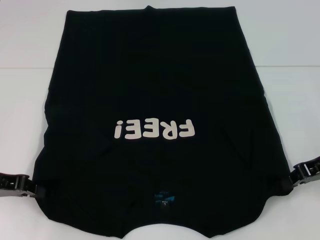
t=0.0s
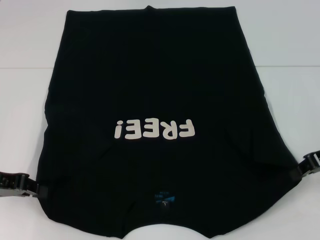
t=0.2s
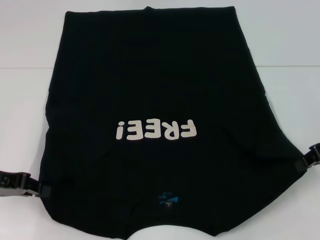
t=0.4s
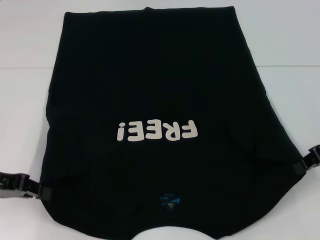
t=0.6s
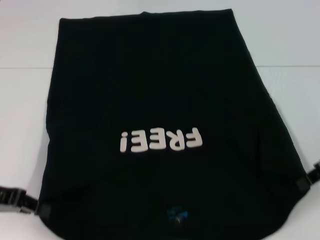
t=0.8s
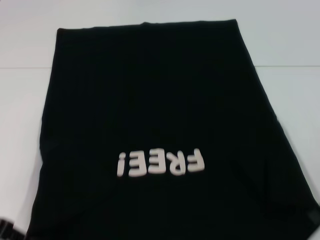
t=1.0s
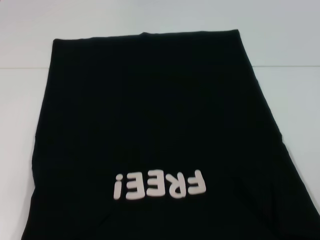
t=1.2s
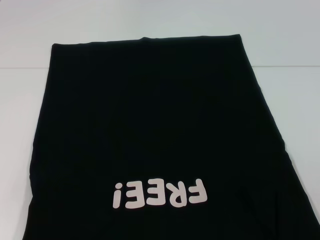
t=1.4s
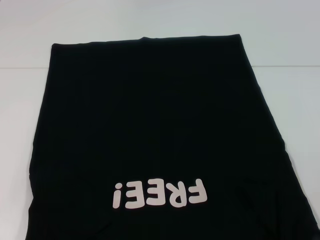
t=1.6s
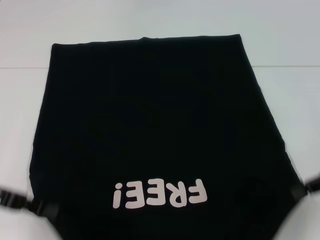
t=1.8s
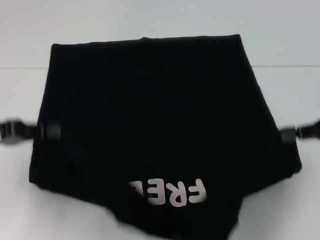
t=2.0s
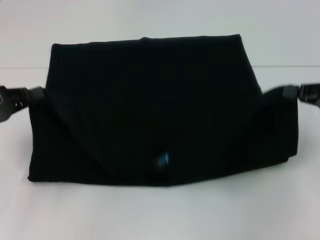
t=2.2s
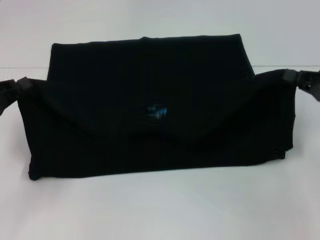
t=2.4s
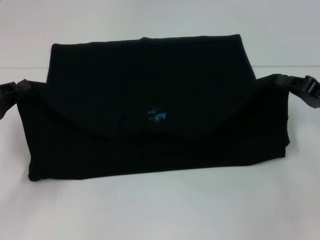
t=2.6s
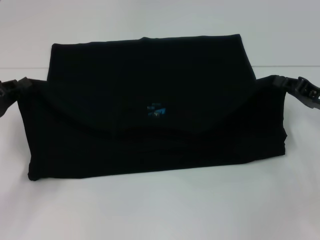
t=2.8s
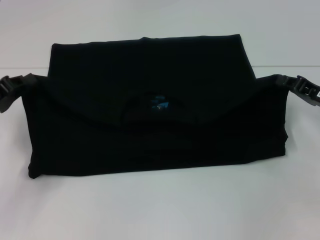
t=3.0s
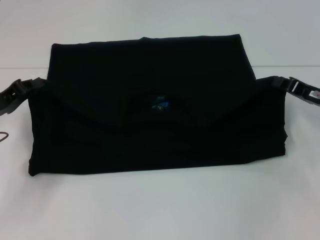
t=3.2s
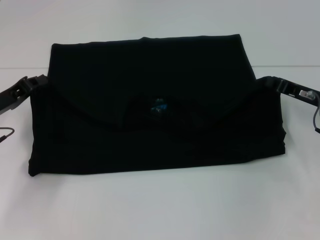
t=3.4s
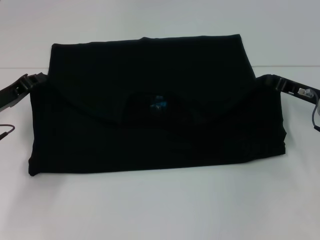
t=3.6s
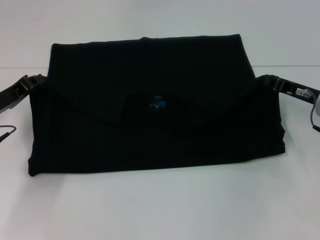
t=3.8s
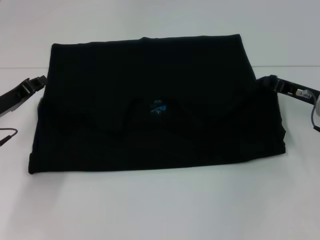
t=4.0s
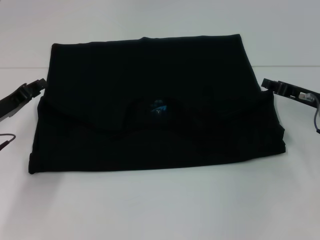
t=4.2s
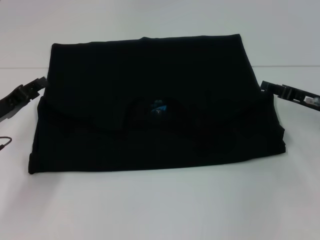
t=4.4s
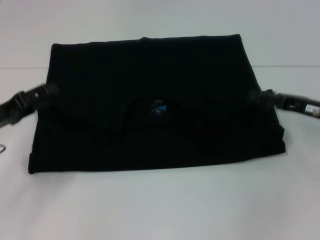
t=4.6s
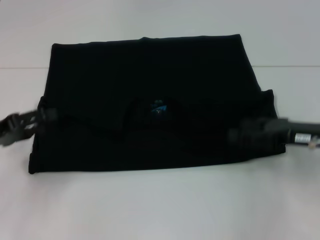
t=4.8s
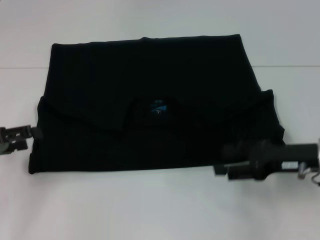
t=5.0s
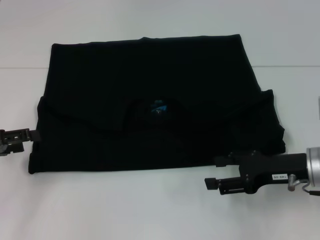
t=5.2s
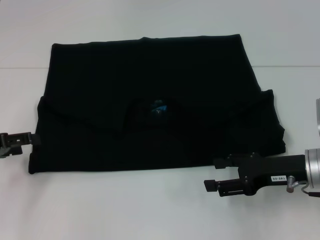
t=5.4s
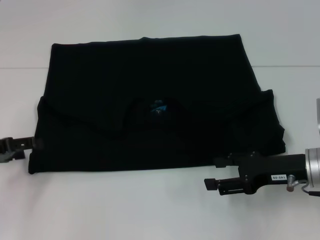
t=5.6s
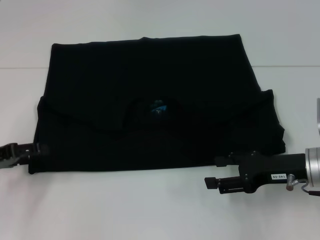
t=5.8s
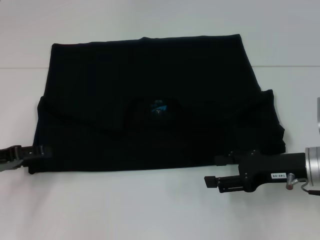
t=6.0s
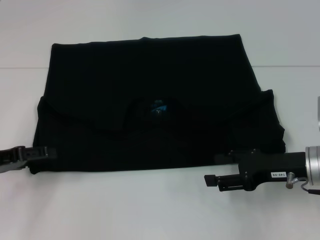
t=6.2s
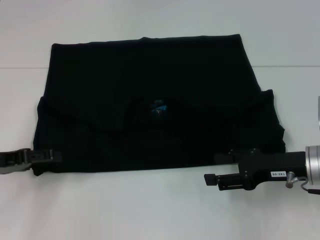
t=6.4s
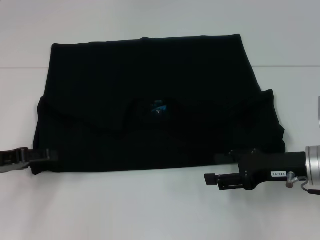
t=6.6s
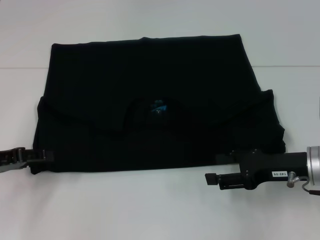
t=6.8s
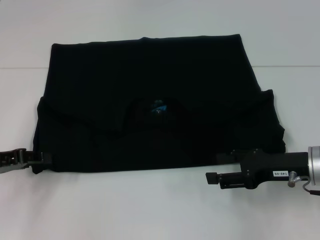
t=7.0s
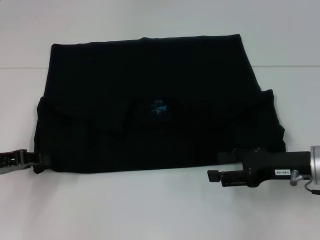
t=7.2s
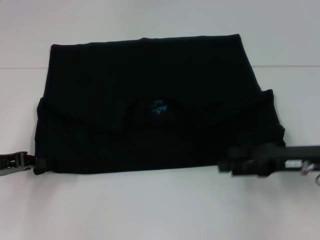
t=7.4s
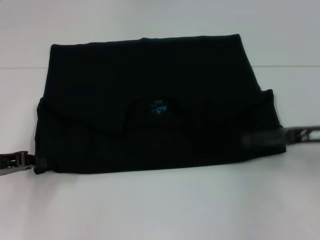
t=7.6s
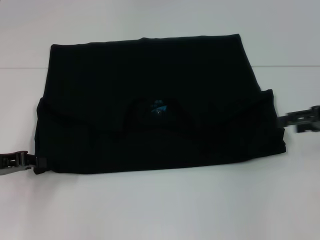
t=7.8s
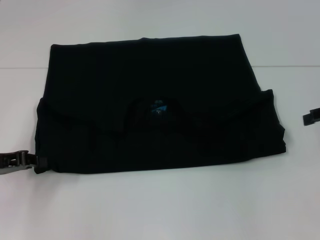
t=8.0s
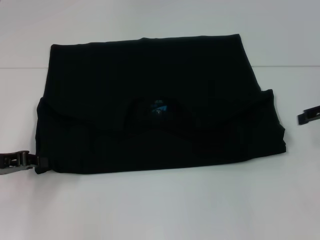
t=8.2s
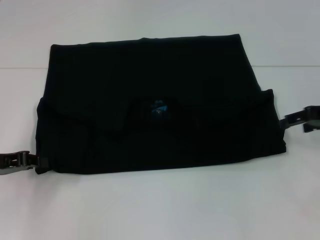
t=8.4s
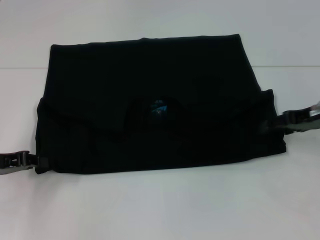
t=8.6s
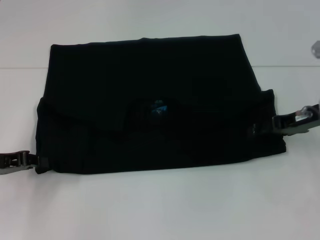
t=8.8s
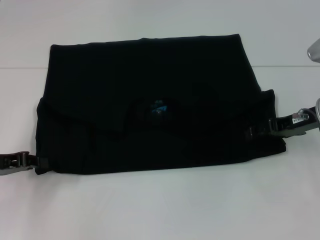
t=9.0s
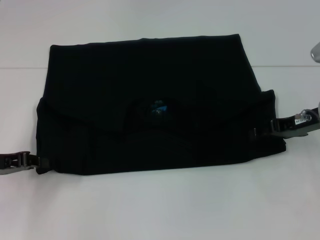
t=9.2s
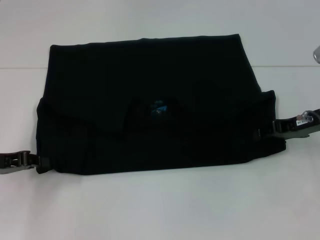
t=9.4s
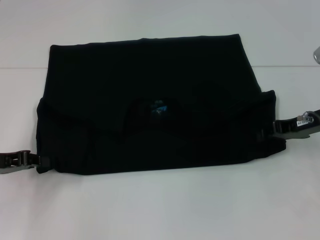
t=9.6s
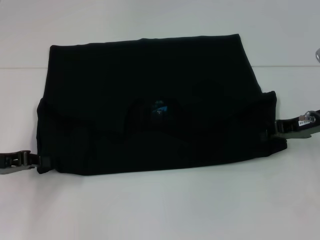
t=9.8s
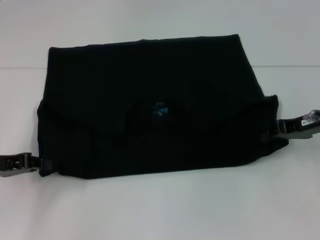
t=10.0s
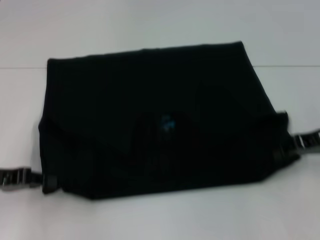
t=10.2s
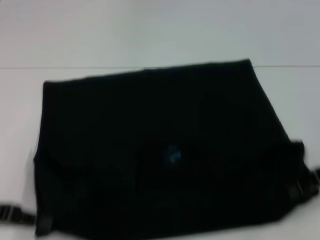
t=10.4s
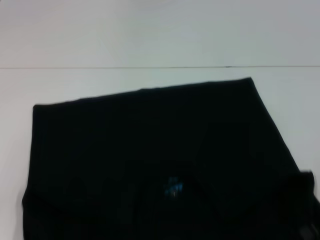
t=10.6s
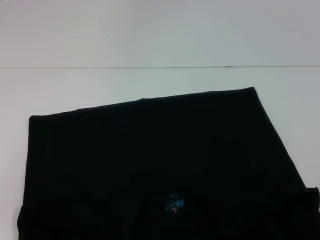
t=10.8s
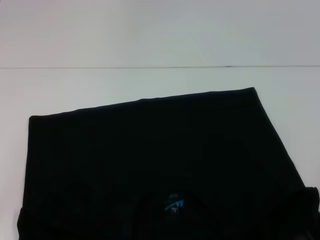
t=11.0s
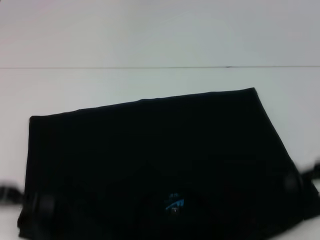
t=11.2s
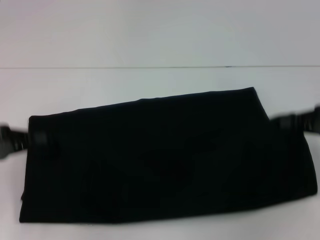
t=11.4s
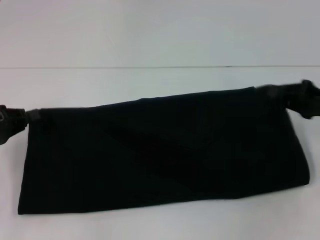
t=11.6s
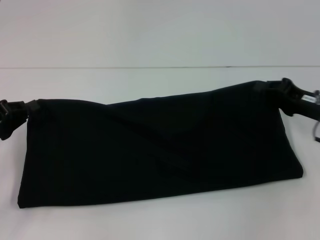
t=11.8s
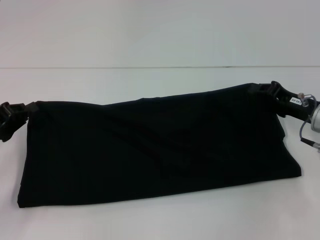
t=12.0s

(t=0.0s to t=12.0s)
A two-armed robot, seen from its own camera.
Step, t=0.0s - t=4.4s: Fold the clothes with your left hand.
Step, t=0.0s - t=4.4s: Fold the clothes with your right hand.
Step, t=4.6s - t=10.6s: Pull the clothes with your left hand.
Step, t=4.6s - t=10.6s: Pull the clothes with your right hand.
t=0.0s - t=1.6s: The right gripper moves about 5 cm.
t=1.6s - t=3.0s: The left gripper heads forward, covering about 5 cm, while the right gripper travels forward and downward by roughly 10 cm.
t=3.0s - t=4.4s: The left gripper opens its fingers.
t=4.4s - t=6.0s: The right gripper travels backward and to the left by about 10 cm, and opens up; the left gripper shifts by roughly 5 cm, and opens up.
t=6.0s - t=7.6s: The right gripper shifts approximately 5 cm to the right. Meanwhile the left gripper closes its fingers.
t=7.6s - t=9.0s: The right gripper moves forward, roughly 5 cm, and travels to the right and back again, about 5 cm each way.
t=9.0s - t=10.4s: The right gripper shifts some 10 cm backward and to the right, and closes. The left gripper changes place by about 5 cm.
t=10.4s - t=12.0s: The right gripper goes roughly 5 cm downward. The left gripper ends up about 5 cm from where it was.

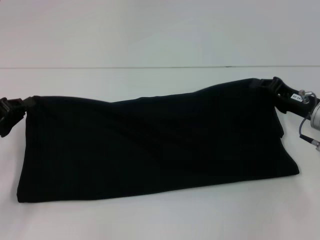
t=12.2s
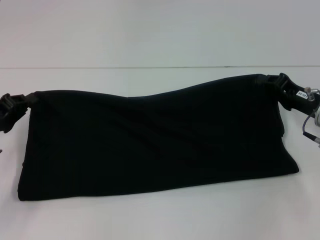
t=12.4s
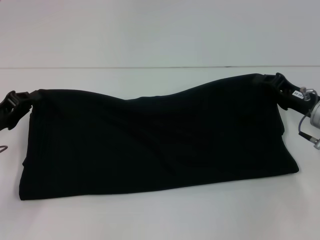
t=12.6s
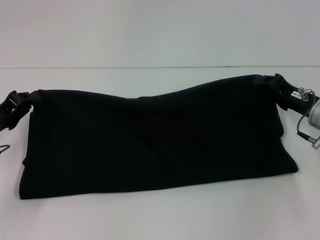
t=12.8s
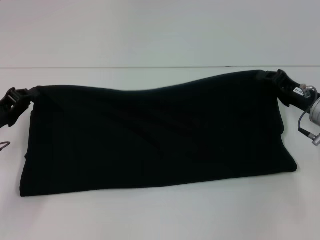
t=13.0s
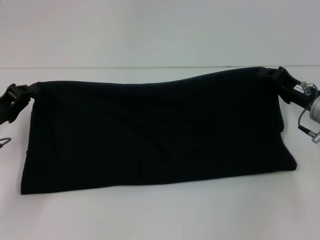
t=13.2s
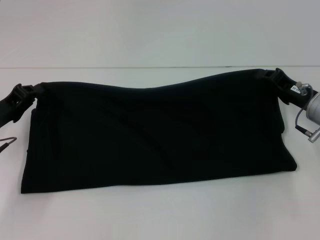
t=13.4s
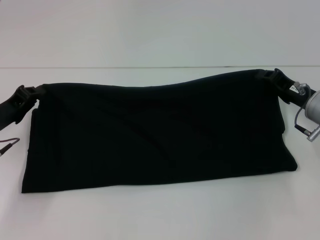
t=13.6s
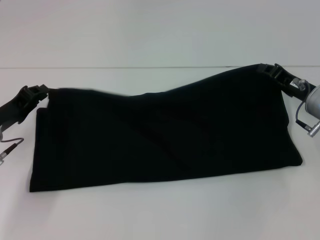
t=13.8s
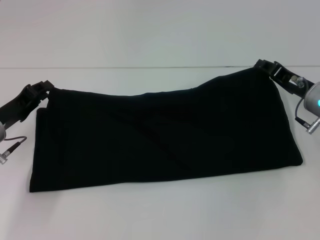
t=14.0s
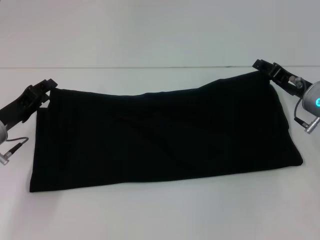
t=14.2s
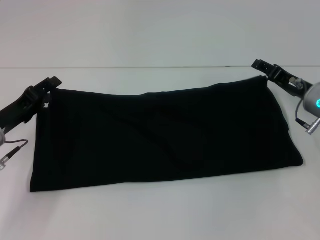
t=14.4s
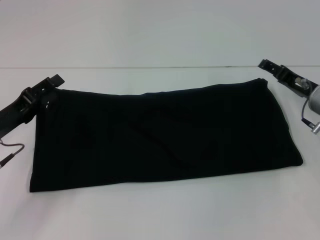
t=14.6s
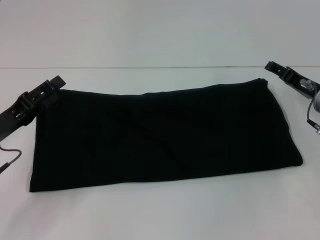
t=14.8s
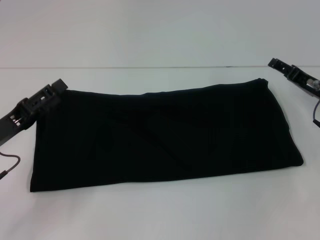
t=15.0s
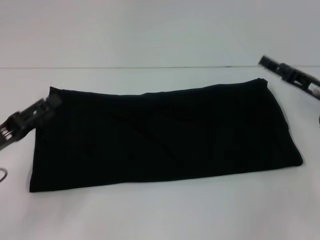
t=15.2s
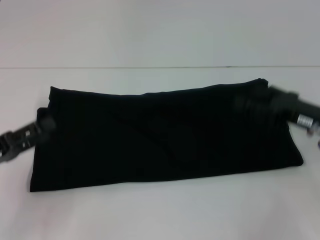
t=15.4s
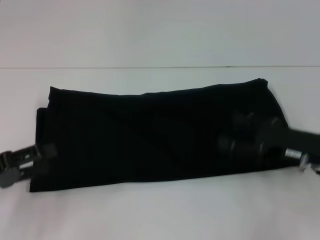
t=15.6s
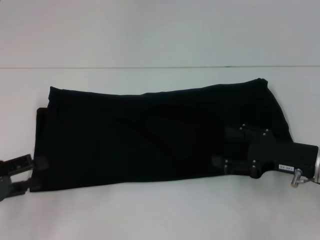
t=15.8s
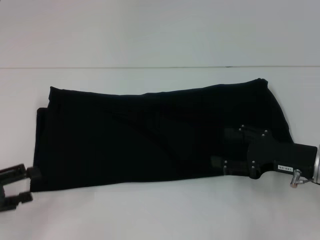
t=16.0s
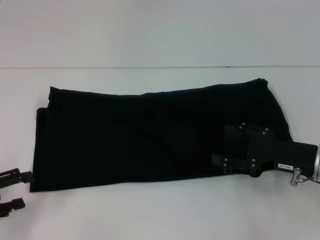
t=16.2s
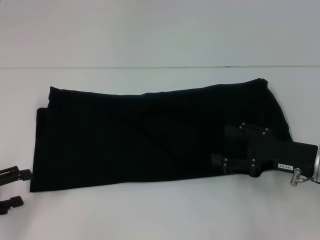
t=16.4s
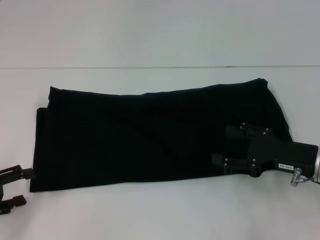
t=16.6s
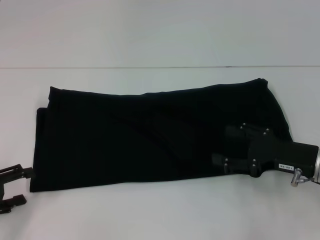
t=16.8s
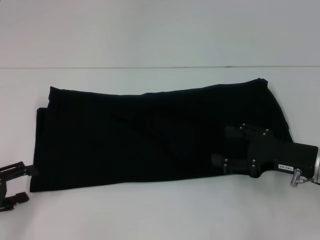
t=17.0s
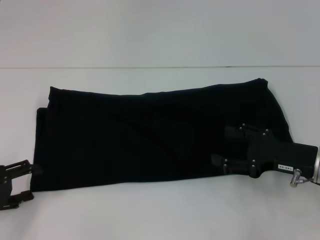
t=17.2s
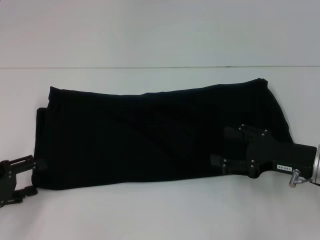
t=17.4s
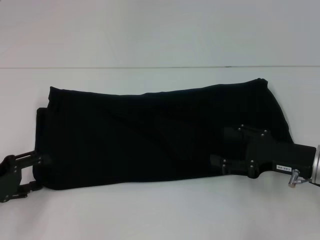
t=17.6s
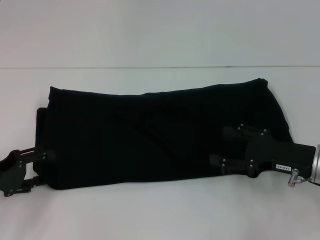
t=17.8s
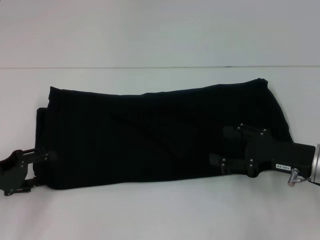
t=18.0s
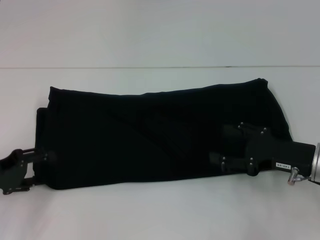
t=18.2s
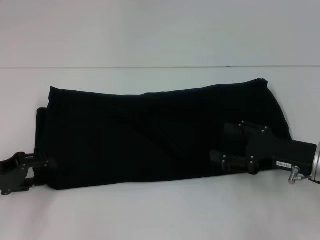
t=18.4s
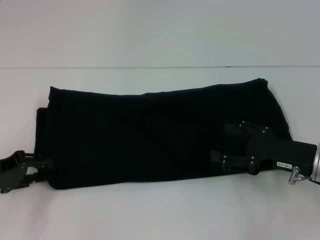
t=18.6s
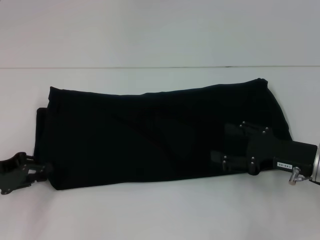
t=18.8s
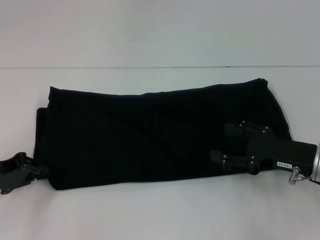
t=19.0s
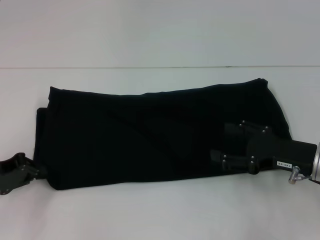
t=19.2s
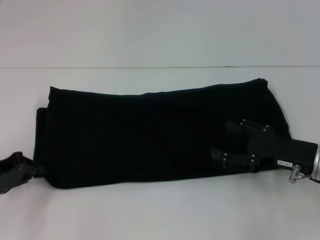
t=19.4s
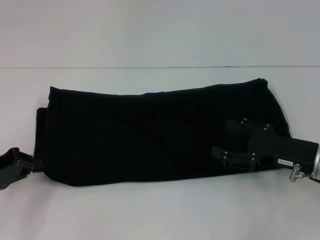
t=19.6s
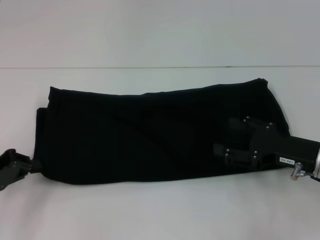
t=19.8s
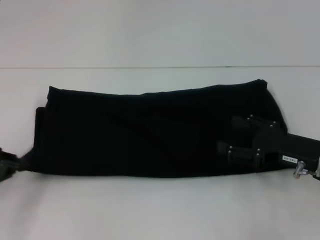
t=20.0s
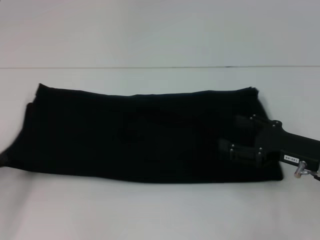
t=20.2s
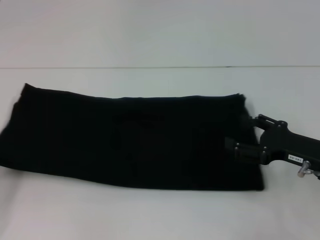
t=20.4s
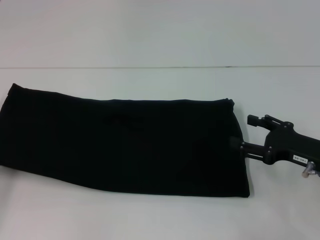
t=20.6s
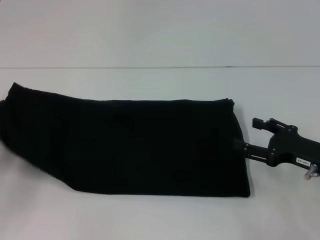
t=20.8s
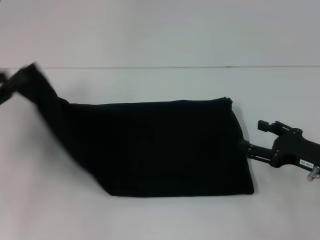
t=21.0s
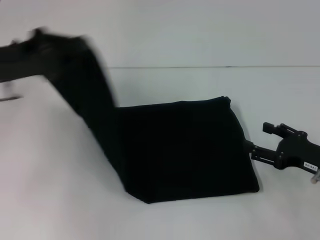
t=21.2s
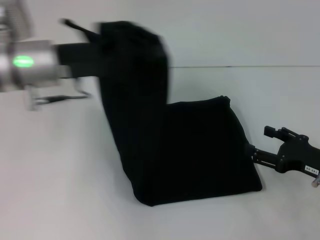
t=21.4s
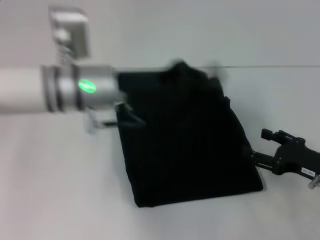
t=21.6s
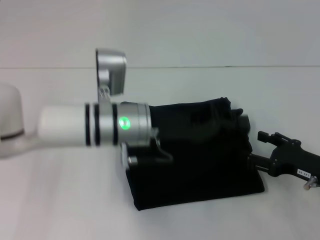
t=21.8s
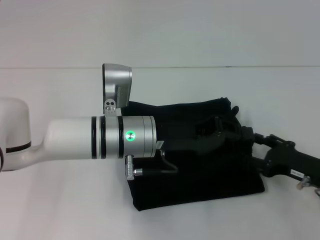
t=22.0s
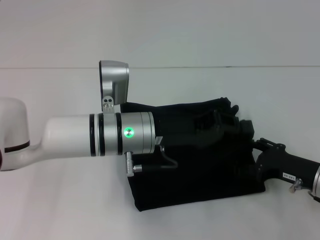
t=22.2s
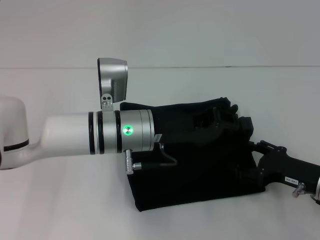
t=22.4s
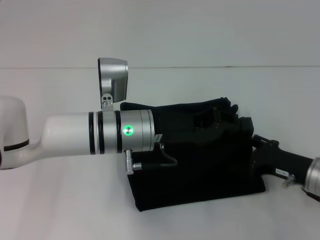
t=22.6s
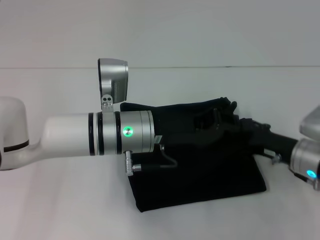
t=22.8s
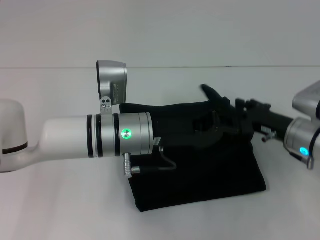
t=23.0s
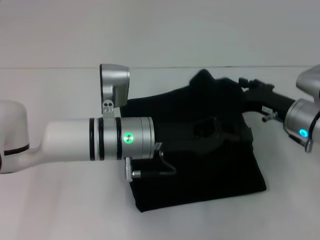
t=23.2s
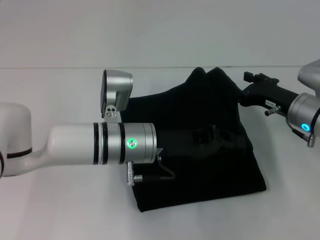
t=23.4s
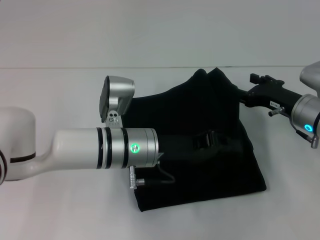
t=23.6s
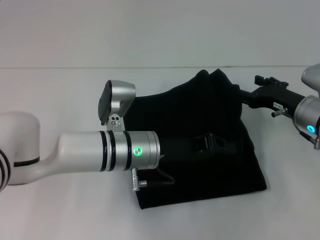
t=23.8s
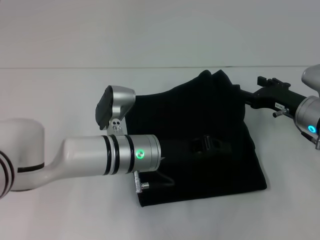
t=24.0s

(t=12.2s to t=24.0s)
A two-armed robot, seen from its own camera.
Step, t=12.2s - t=15.2s: Fold the clothes with your right hand.
t=12.2s - t=13.6s: The grippers stay close to where they were, moving slightly.
t=13.6s - t=15.2s: The right gripper opens its fingers. Meanwhile the left gripper moves backward, some 5 cm, and opens.
t=15.2s - t=16.6s: The left gripper goes about 5 cm to the left; the right gripper goes some 5 cm backward.
t=16.6s - t=18.2s: The left gripper goes about 5 cm forward.
t=18.2s - t=19.6s: The left gripper closes its fingers.
t=19.6s - t=21.0s: The left gripper is displaced upward by approximately 10 cm, and travels to the left and back again, approximately 10 cm each way.
t=21.0s - t=22.6s: The left gripper heads to the right, covering about 30 cm.
t=22.6s - t=24.0s: The right gripper shifts about 10 cm forward.
